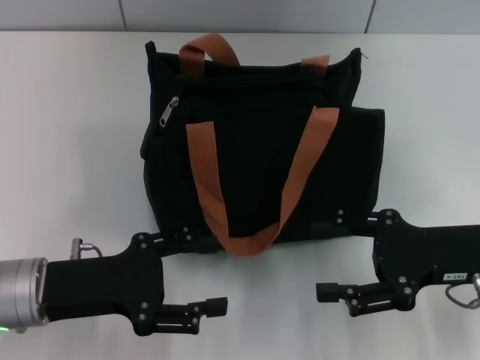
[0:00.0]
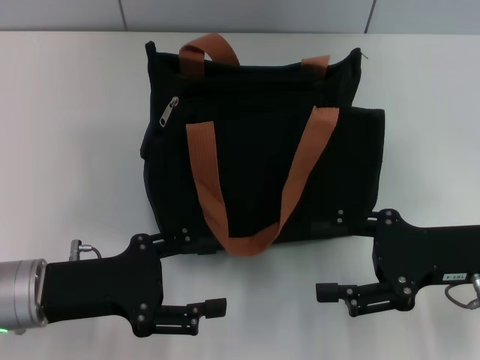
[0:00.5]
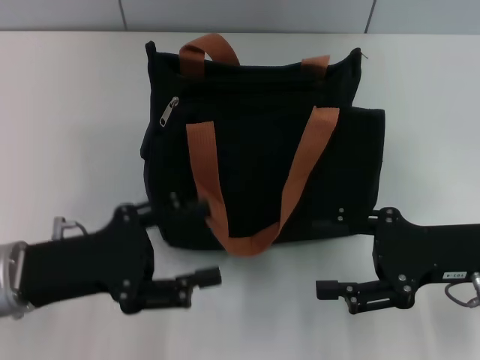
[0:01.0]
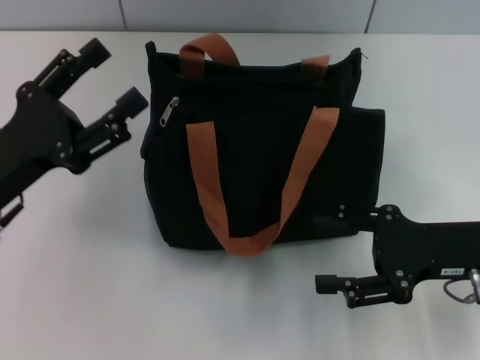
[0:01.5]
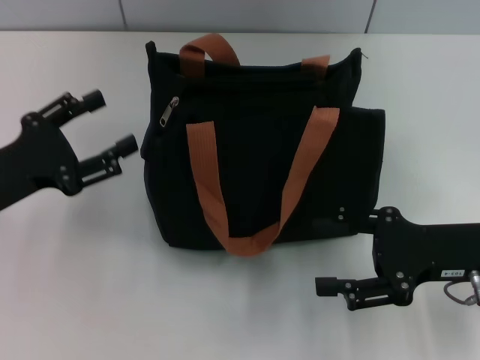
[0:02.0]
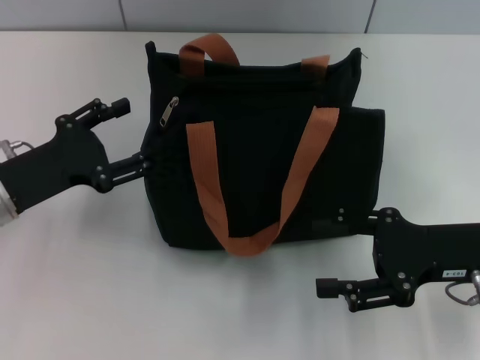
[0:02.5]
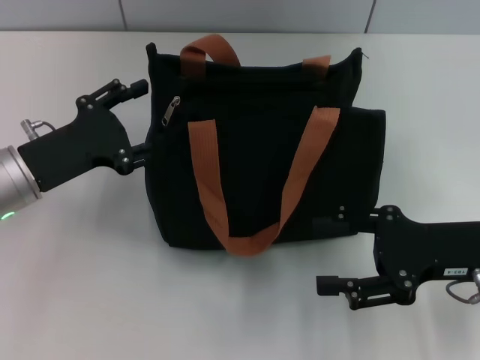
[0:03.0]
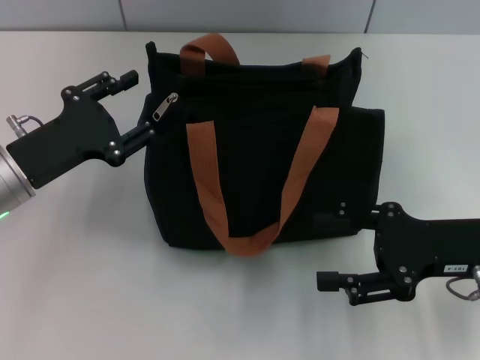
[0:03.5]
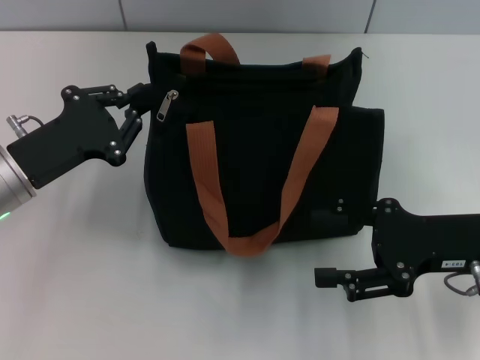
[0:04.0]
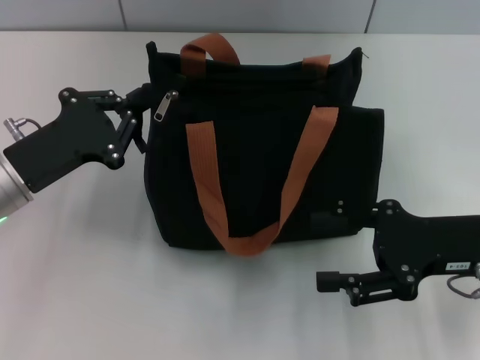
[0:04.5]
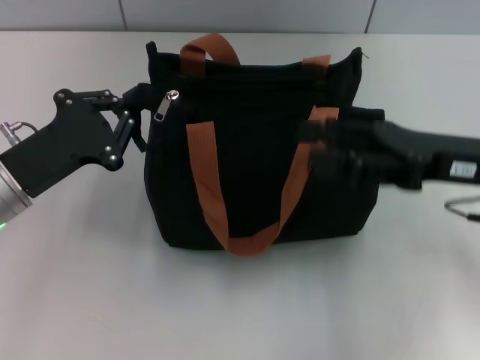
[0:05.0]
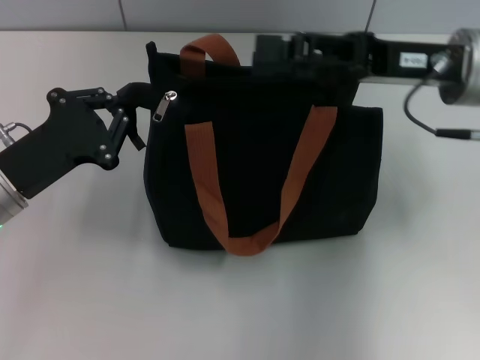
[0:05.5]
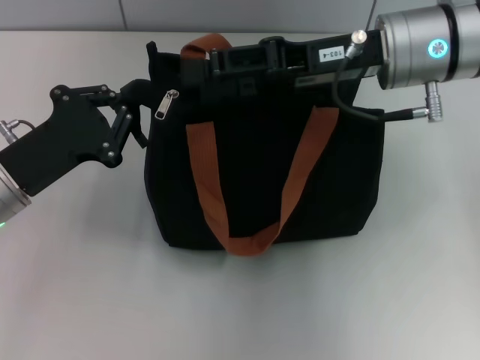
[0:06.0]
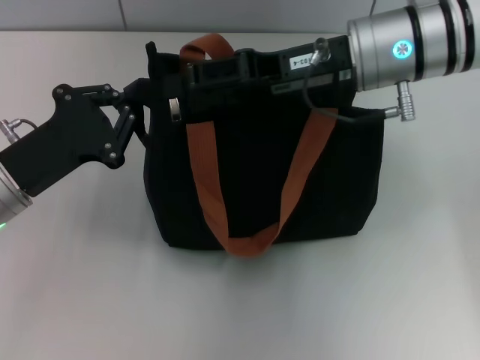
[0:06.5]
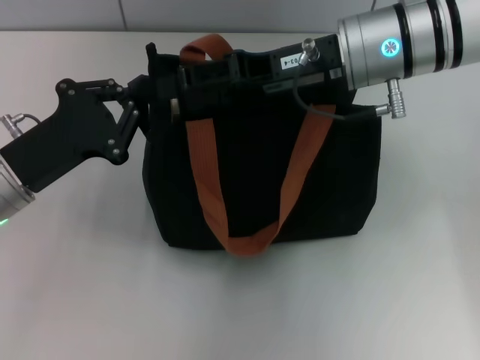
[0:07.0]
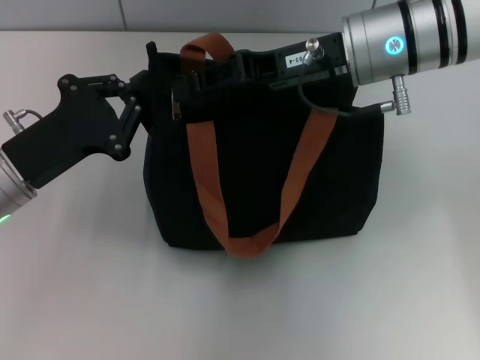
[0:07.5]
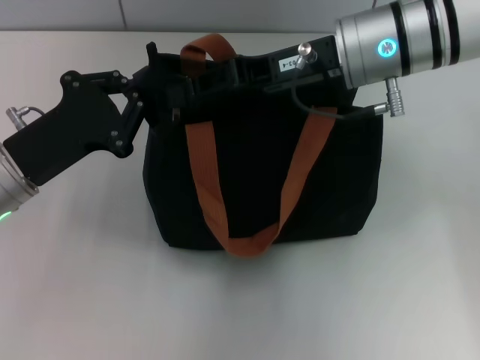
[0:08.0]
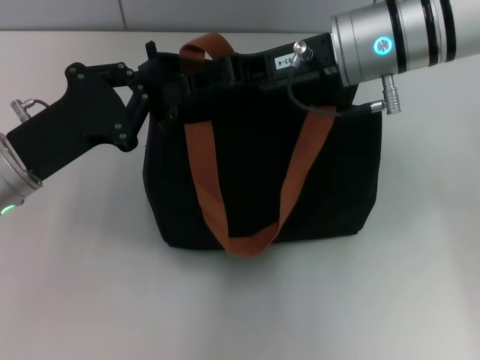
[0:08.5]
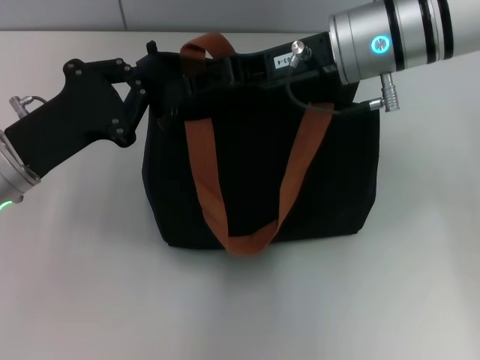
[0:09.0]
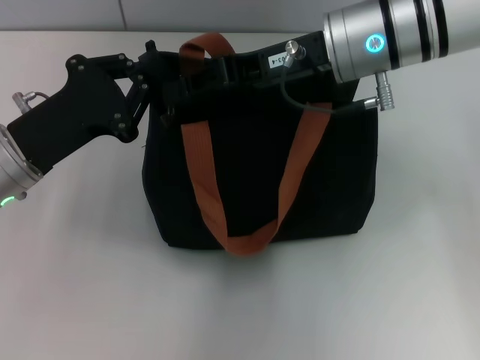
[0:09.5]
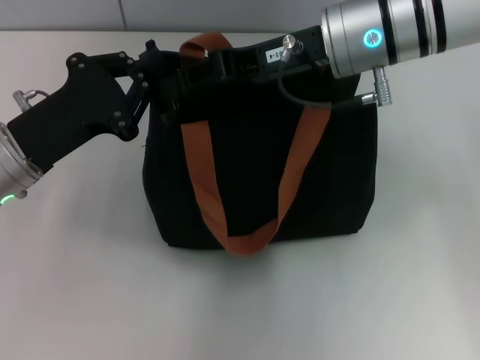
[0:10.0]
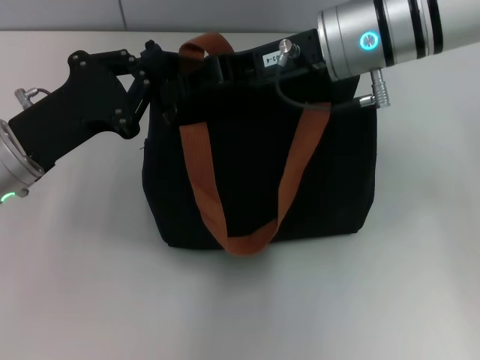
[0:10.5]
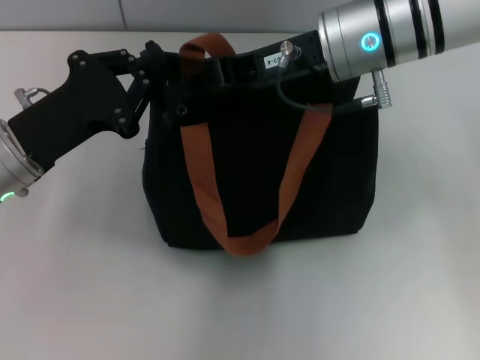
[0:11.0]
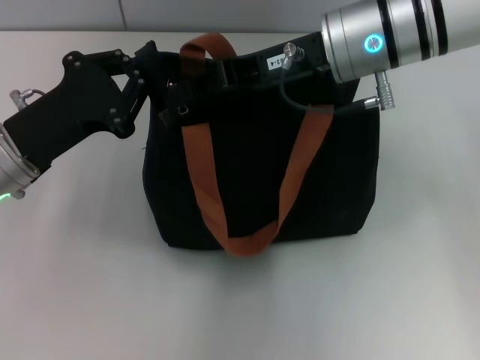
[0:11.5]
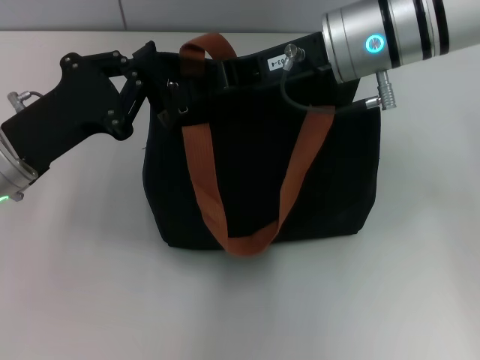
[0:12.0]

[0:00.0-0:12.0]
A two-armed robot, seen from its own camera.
0.0 to 2.0 s: The left gripper shifts approximately 5 cm to the left.
2.0 to 4.0 s: The left gripper moves roughly 5 cm, and closes its fingers.
4.0 to 6.0 s: The right gripper travels forward, to the left and upward by approximately 20 cm. The left gripper closes its fingers.
6.0 to 8.0 s: The right gripper closes up.
8.0 to 10.0 s: The grippers stay close to where they were, moving slightly.
10.0 to 12.0 s: The right gripper closes.

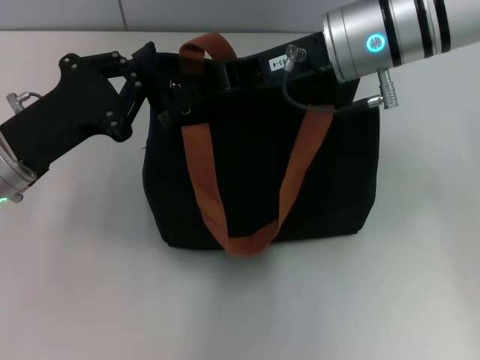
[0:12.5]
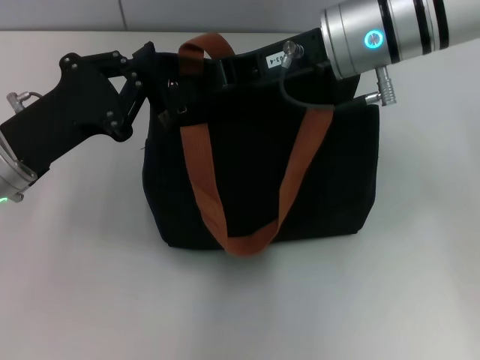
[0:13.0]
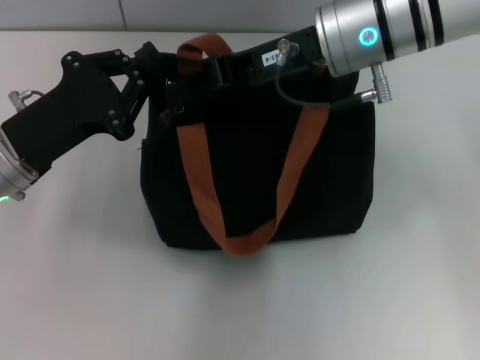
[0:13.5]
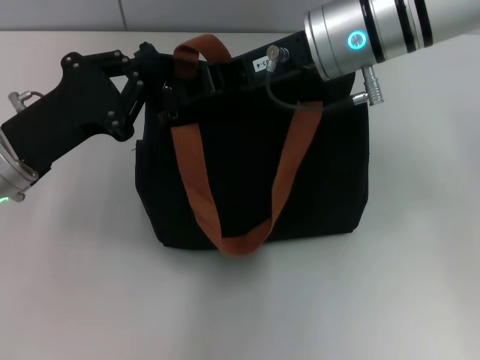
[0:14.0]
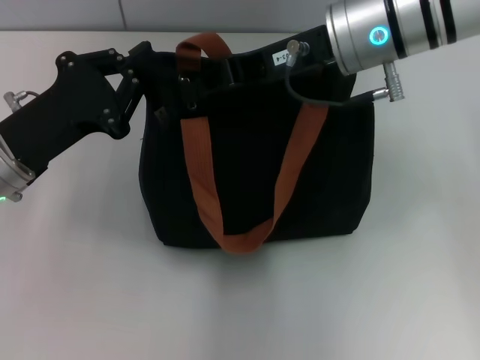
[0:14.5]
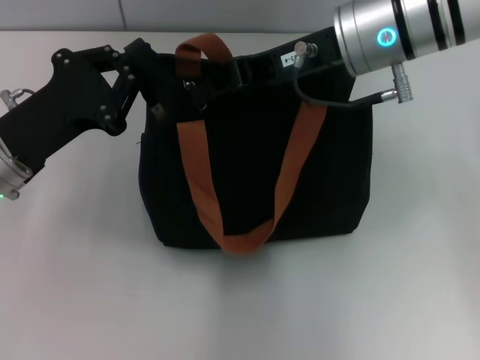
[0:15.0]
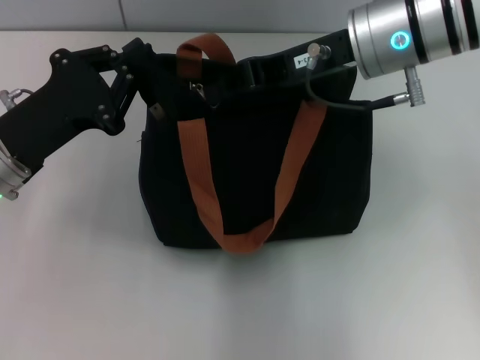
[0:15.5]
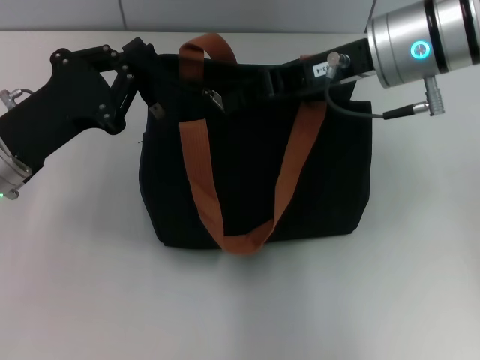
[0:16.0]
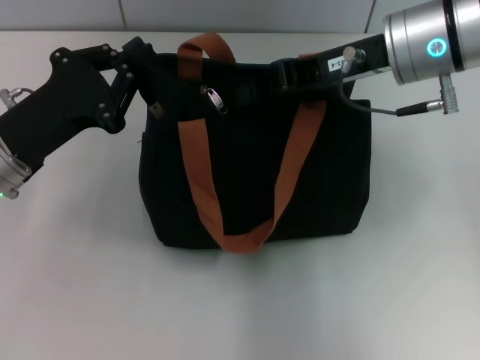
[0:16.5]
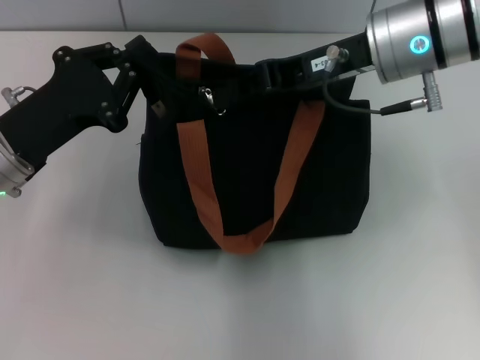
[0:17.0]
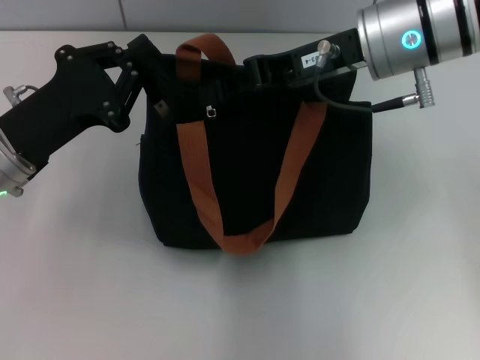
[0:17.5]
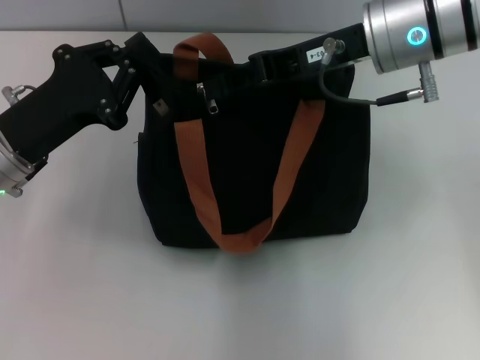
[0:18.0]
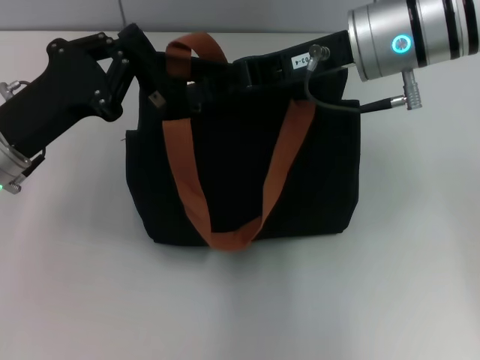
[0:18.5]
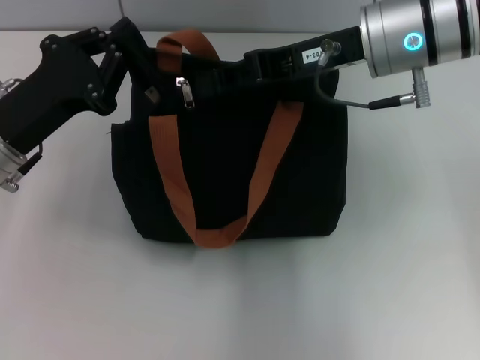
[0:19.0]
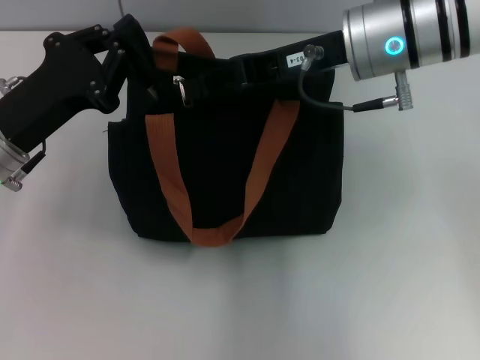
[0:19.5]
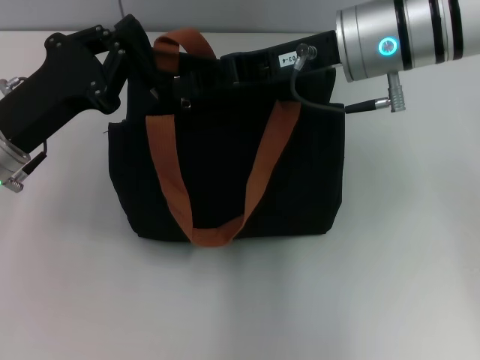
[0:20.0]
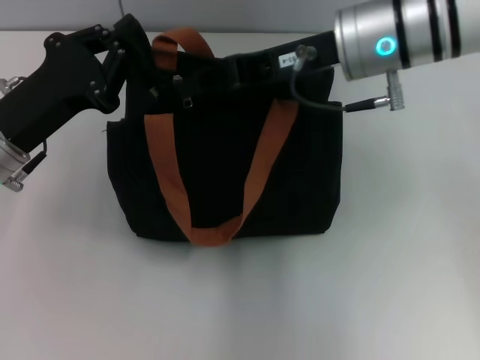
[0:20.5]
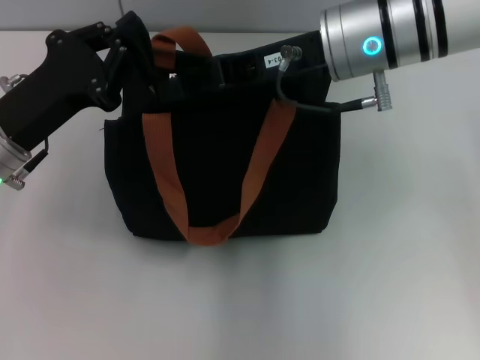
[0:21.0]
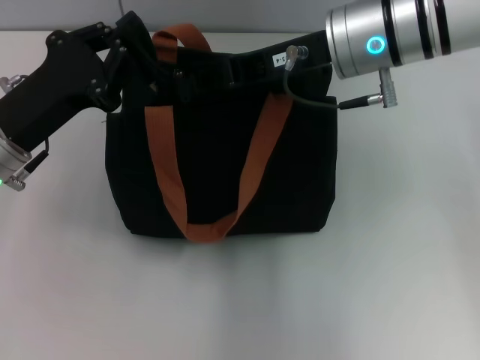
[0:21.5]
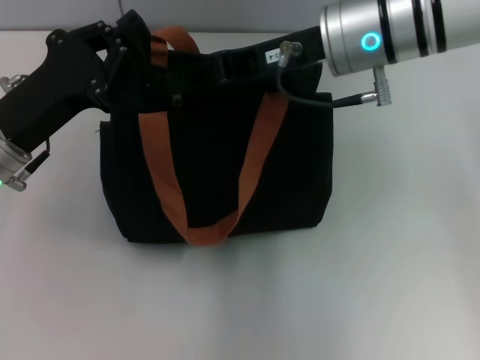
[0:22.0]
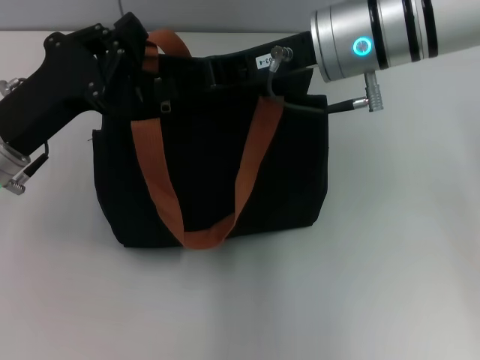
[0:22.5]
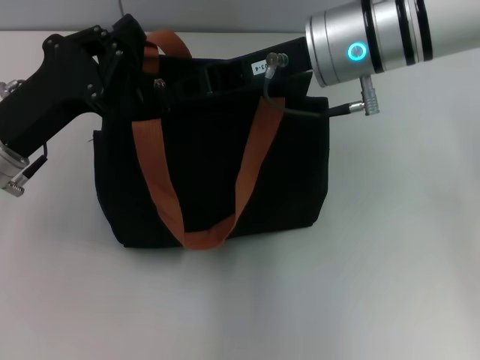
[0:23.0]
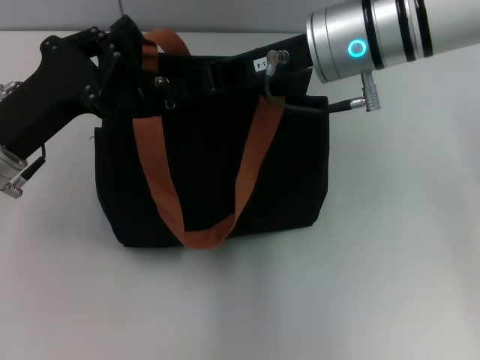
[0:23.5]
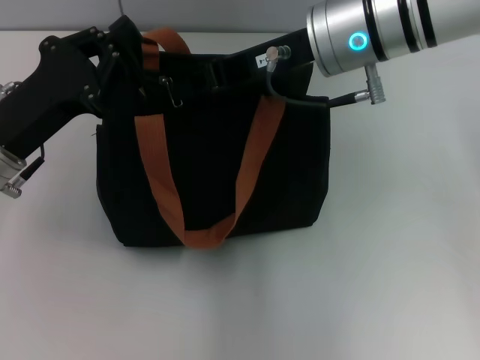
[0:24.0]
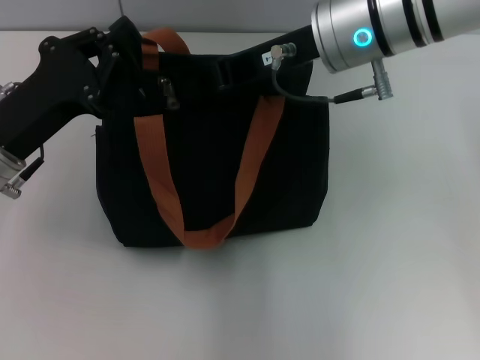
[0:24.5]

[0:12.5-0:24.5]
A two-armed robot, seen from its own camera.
12.5 to 18.5 s: The grippers make only small movements.
18.5 to 20.5 s: Both grippers stay about where they are.
20.5 to 24.5 s: The grippers stay close to where they were, moving slightly.

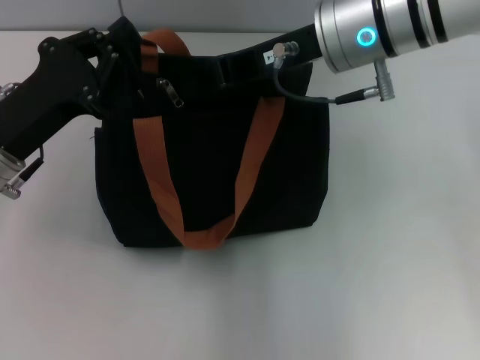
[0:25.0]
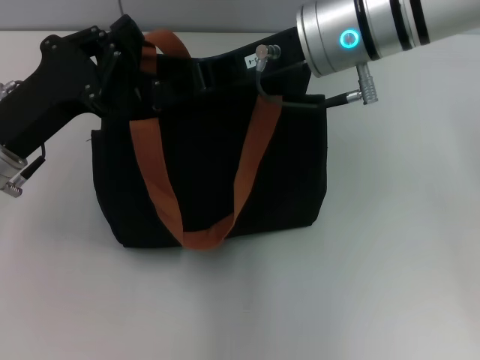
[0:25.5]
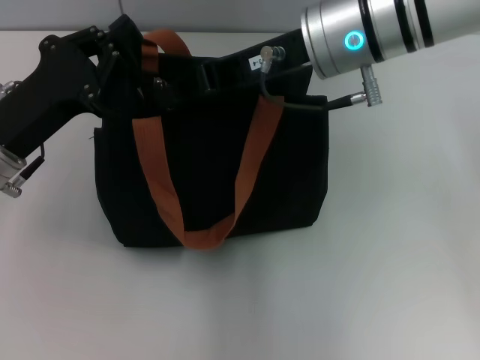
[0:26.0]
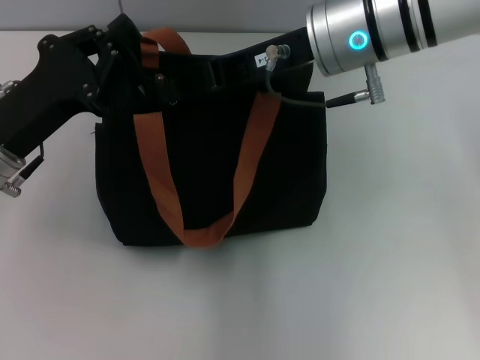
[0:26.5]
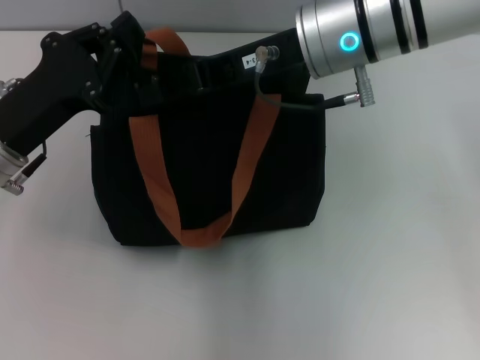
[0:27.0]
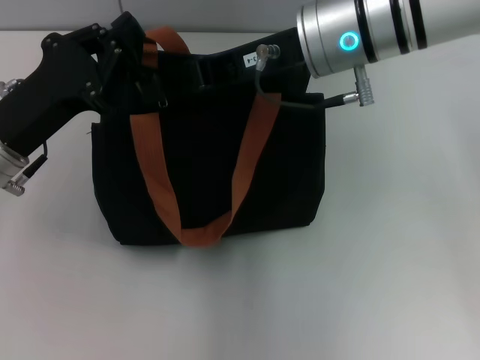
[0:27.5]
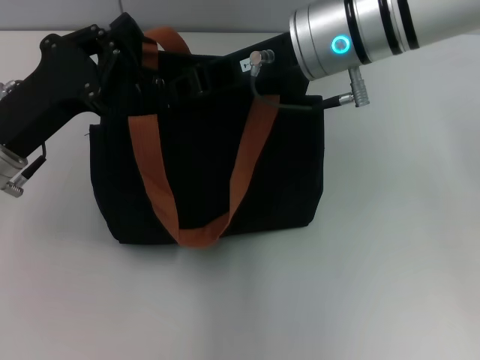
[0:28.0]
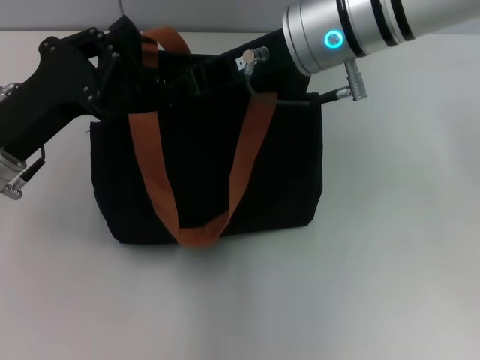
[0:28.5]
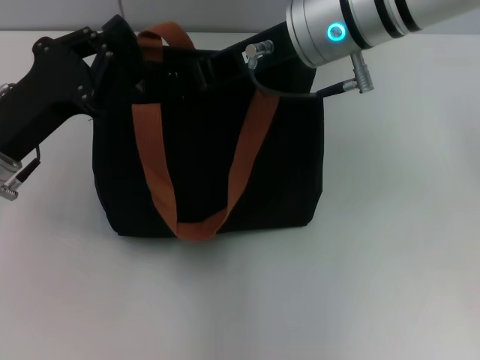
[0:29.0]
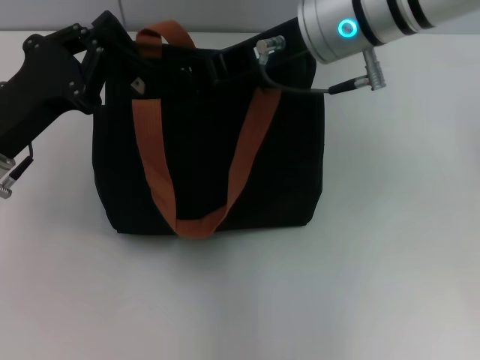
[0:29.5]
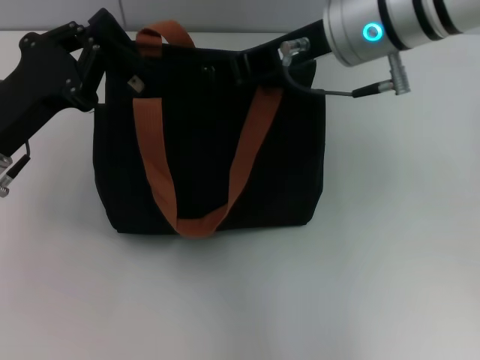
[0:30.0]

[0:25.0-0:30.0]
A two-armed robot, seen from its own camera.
25.0 to 27.5 s: The right gripper opens.
27.5 to 30.0 s: The right gripper closes up.
